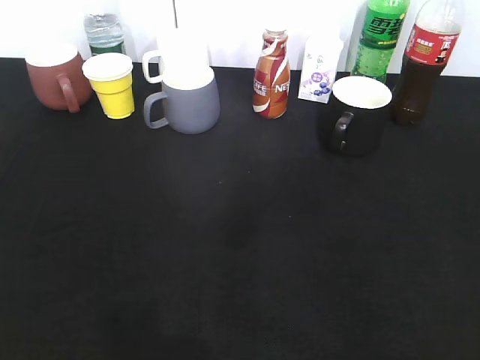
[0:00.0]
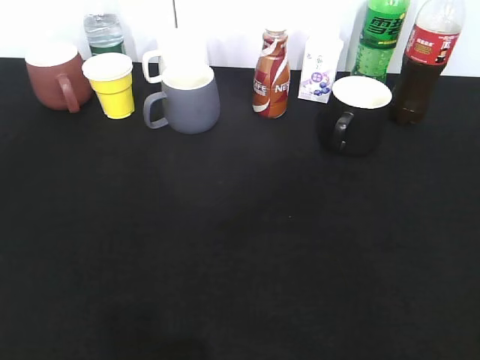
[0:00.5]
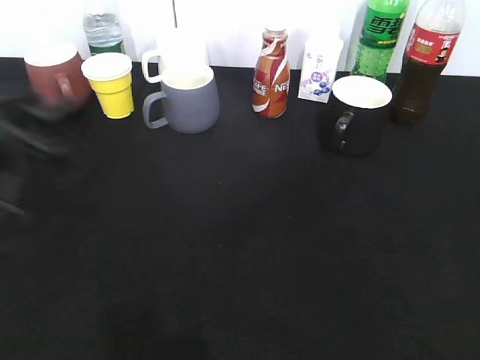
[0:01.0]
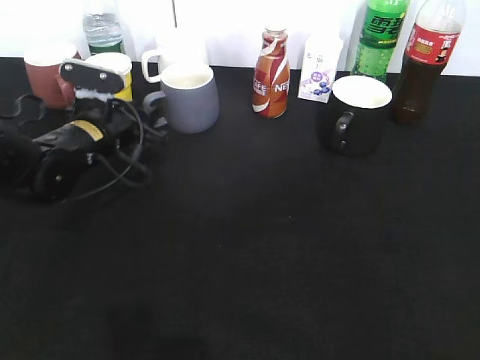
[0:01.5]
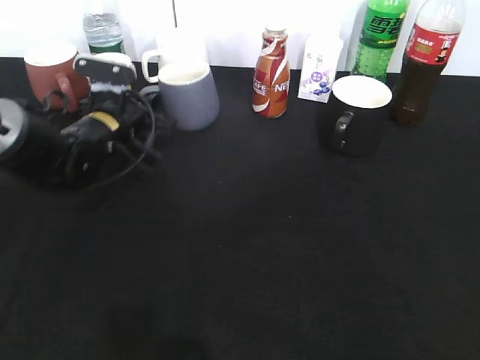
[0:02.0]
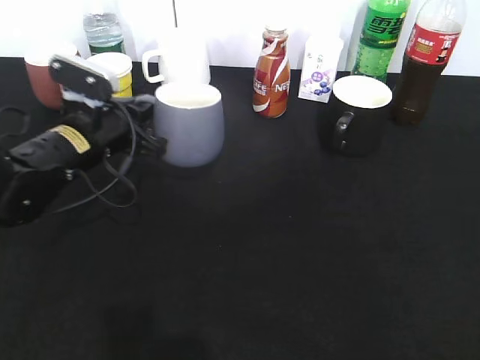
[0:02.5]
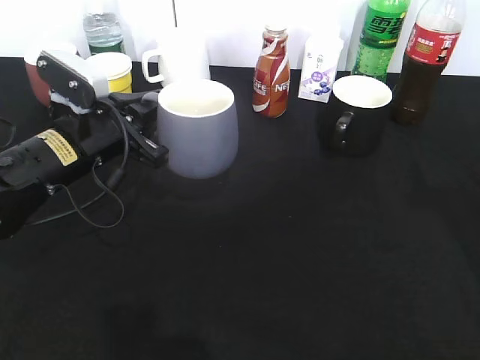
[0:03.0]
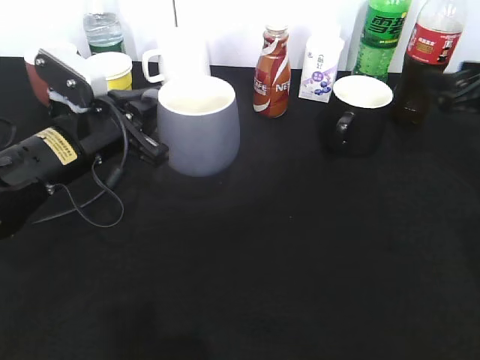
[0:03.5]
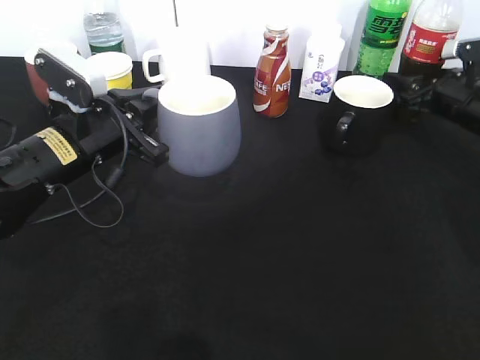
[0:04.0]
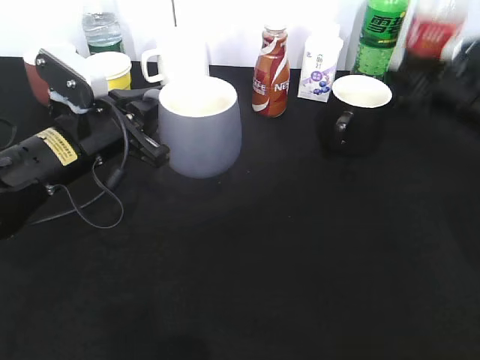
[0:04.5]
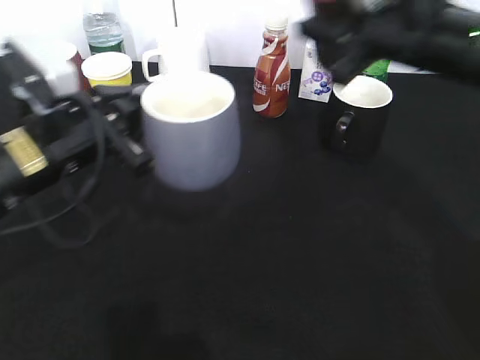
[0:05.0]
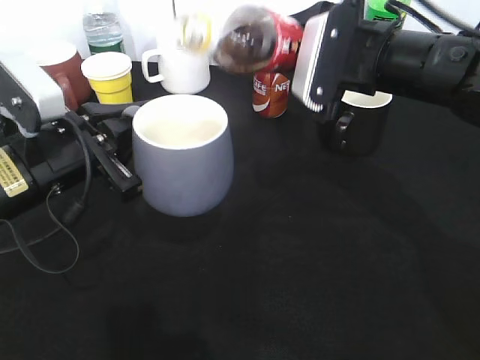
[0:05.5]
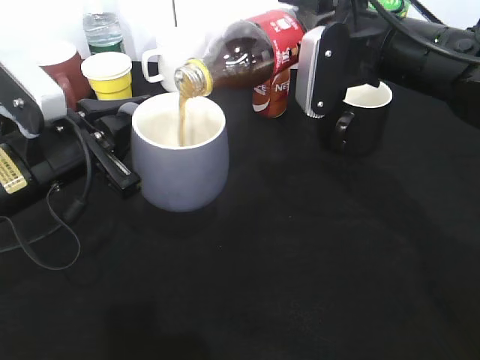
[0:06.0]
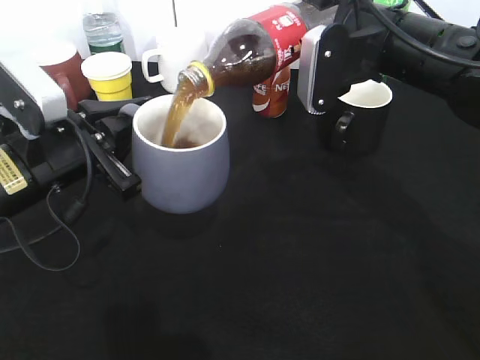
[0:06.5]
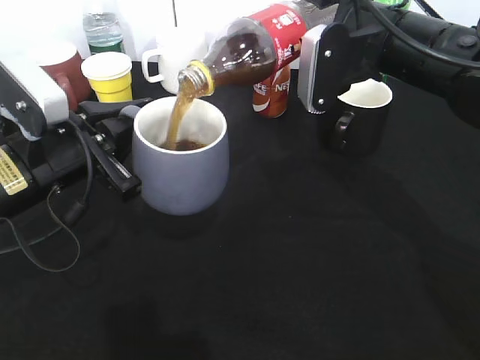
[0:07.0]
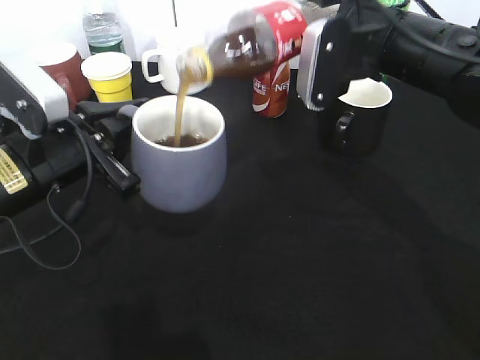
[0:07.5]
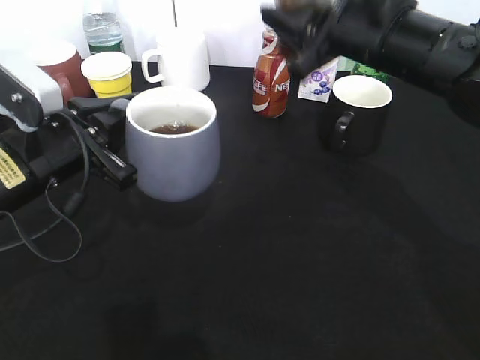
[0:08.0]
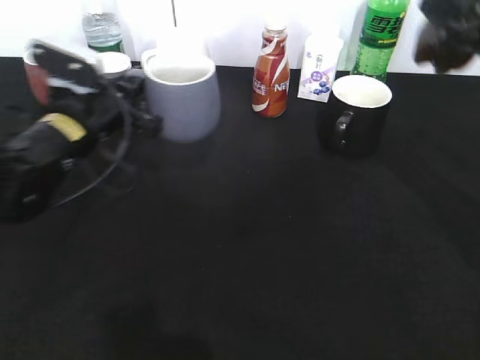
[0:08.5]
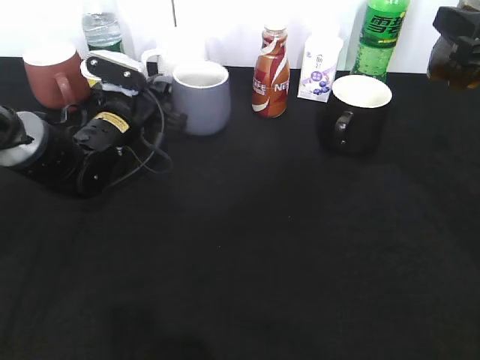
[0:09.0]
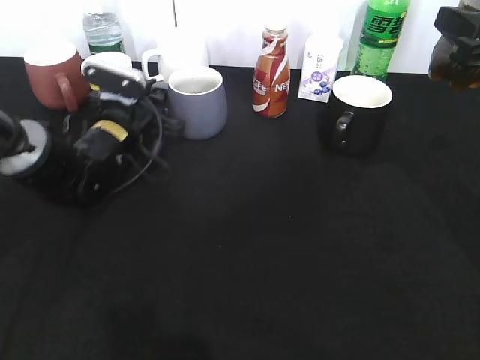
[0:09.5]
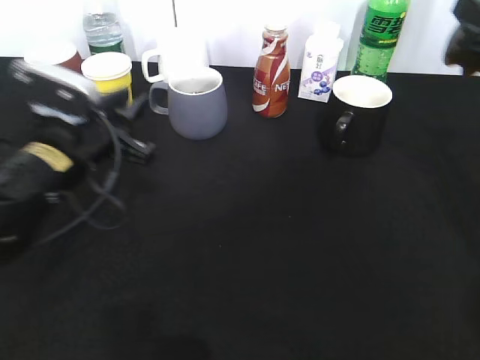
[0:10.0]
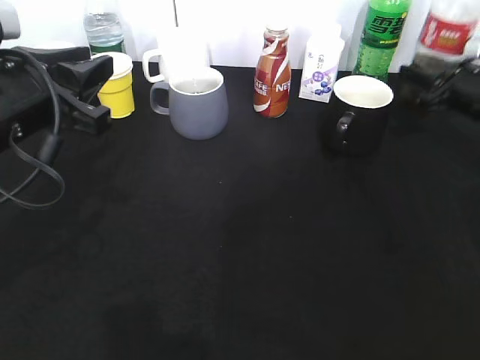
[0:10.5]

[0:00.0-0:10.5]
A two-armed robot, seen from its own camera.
Step, 0:00.0 to 0:02.0: Grasp the grey cup with left gripper.
Step, 0:03.0 to 0:04.0: Grasp the bottle with cola with right gripper.
Step, 0:04.5 to 0:07.0: Pour the cola from bottle to cup with right gripper.
Step, 0:07.5 to 0:09.5: Place the grey cup on the table with left gripper.
0:00.0 to 0:02.0: The left gripper moves forward and downward, about 40 cm, and closes.
0:02.0 to 0:04.0: The left gripper shifts roughly 10 cm backward and upward. Meanwhile the right gripper moves forward, some 40 cm.
0:04.0 to 0:06.5: The right gripper shifts about 25 cm to the left, upward and backward, and closes up; the left gripper heads backward, covering some 5 cm.
0:06.5 to 0:08.5: The left gripper is displaced forward by approximately 10 cm; the right gripper goes about 15 cm to the right.
0:08.5 to 0:10.5: The right gripper goes roughly 20 cm downward, forward and to the right. The left gripper goes roughly 15 cm backward and upward, and opens its fingers.

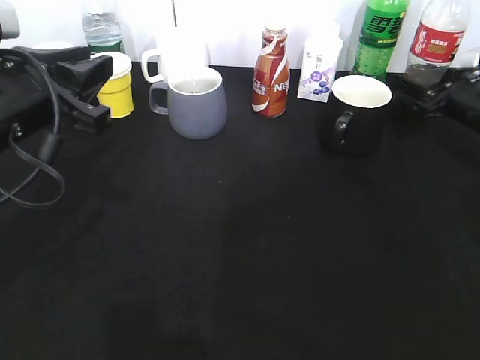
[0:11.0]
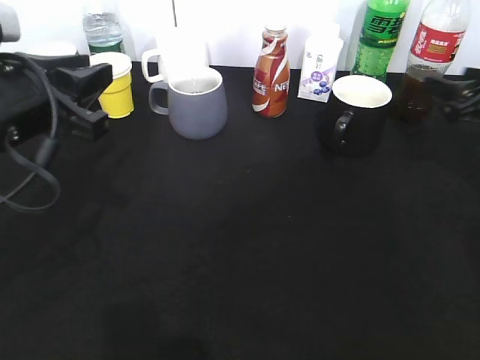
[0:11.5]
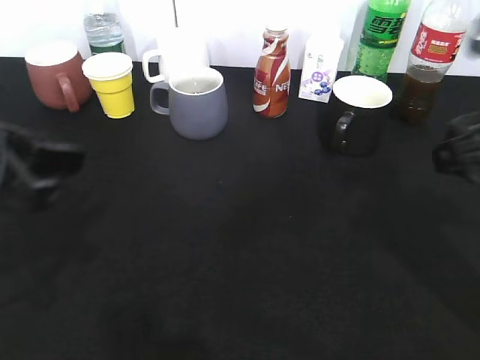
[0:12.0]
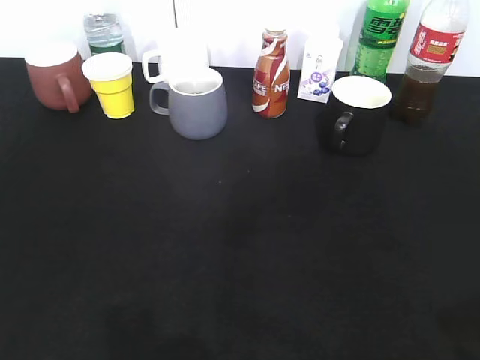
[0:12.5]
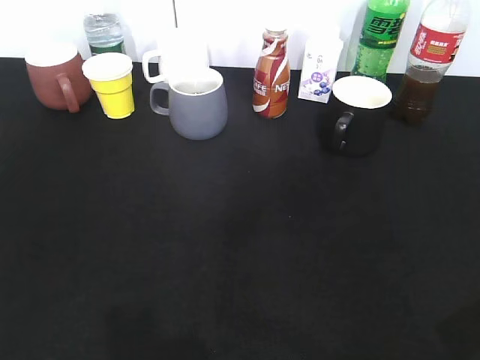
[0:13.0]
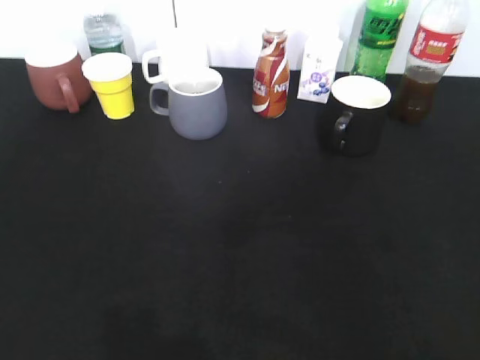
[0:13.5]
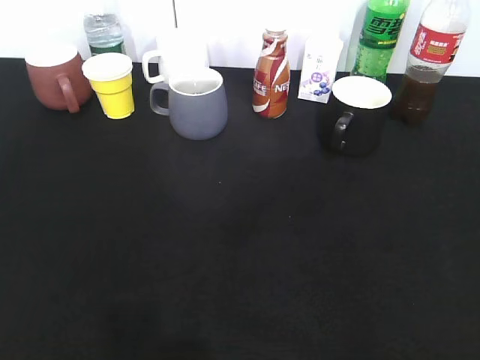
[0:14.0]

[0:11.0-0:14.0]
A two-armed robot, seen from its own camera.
0:11.0 to 0:12.5: The left gripper moves backward and to the left, some 25 cm, and opens up. Meanwhile the right gripper goes approximately 40 cm backward and upward.

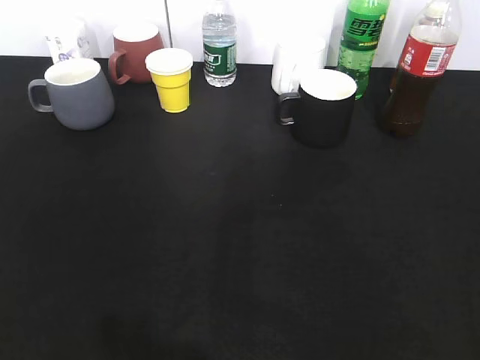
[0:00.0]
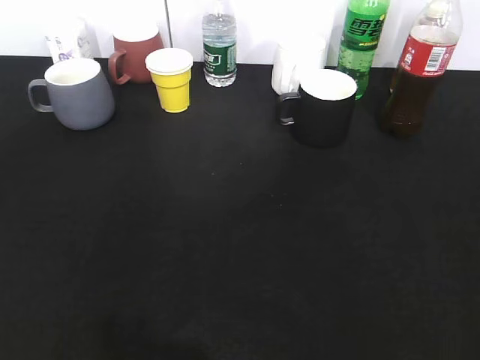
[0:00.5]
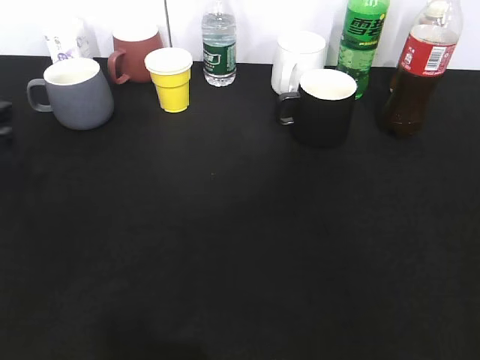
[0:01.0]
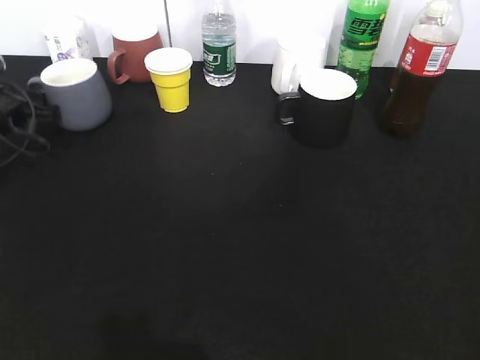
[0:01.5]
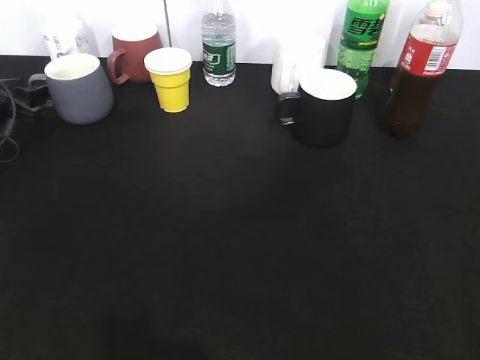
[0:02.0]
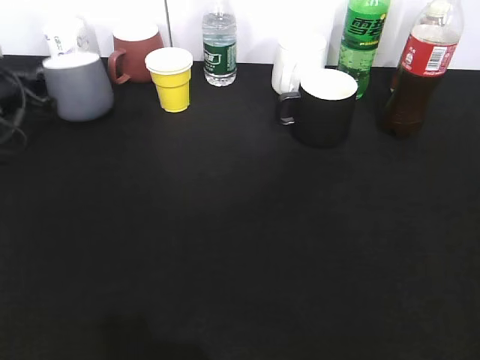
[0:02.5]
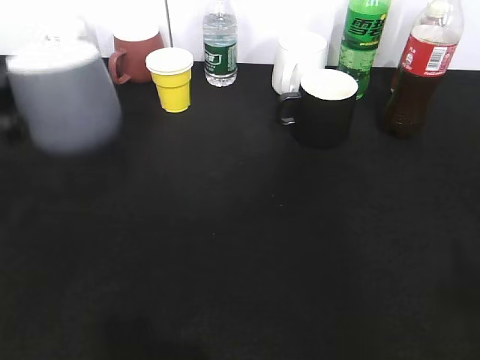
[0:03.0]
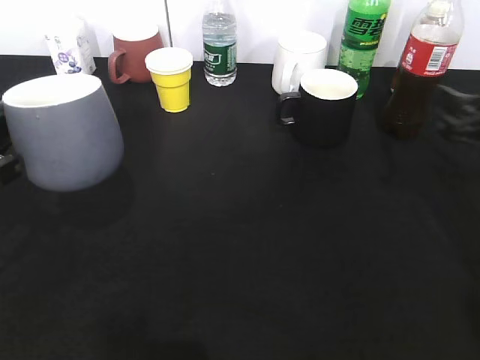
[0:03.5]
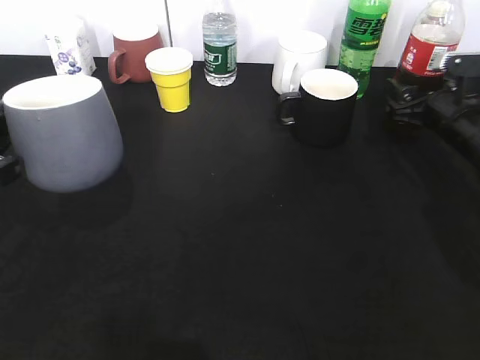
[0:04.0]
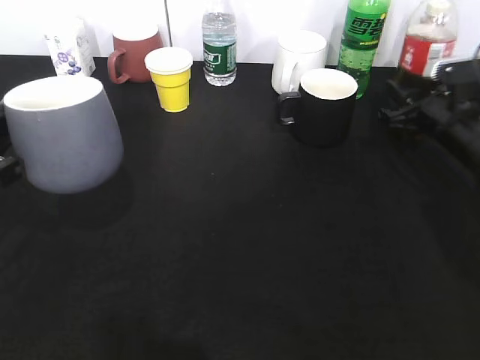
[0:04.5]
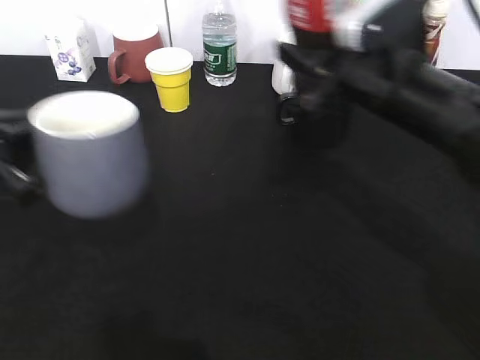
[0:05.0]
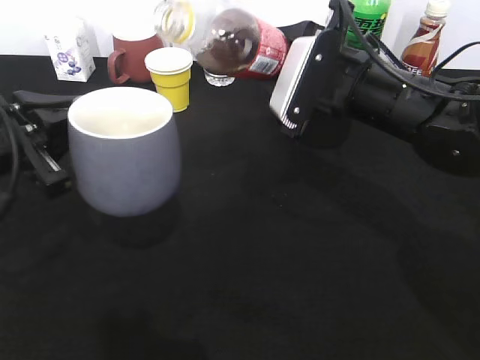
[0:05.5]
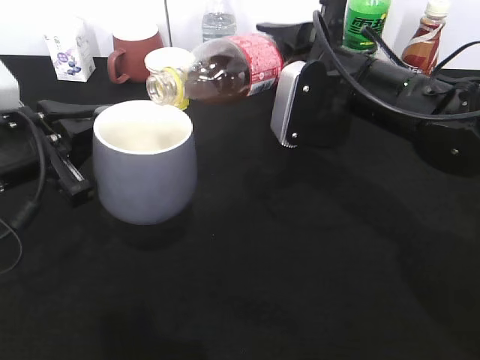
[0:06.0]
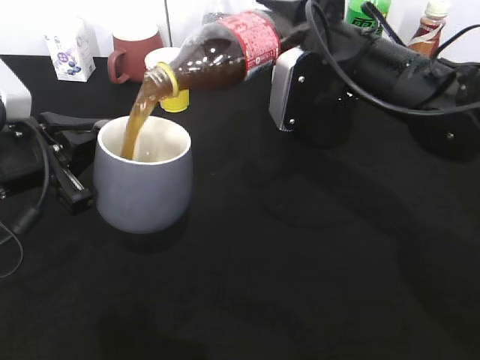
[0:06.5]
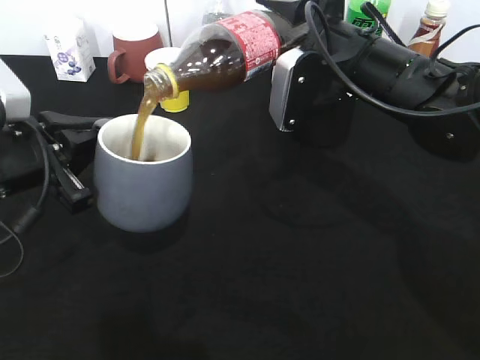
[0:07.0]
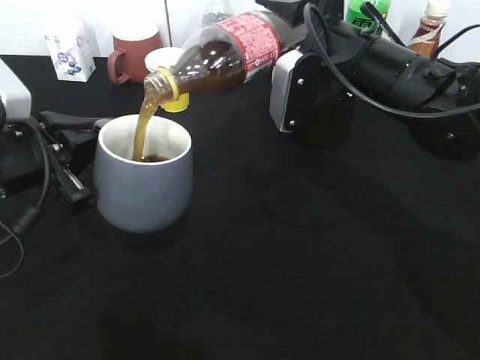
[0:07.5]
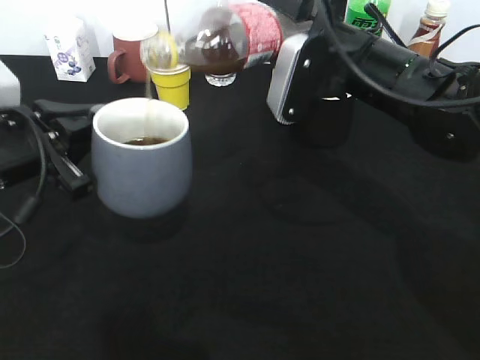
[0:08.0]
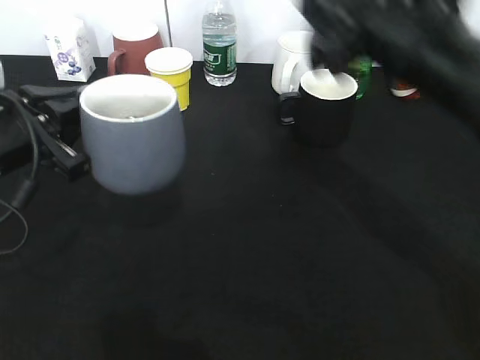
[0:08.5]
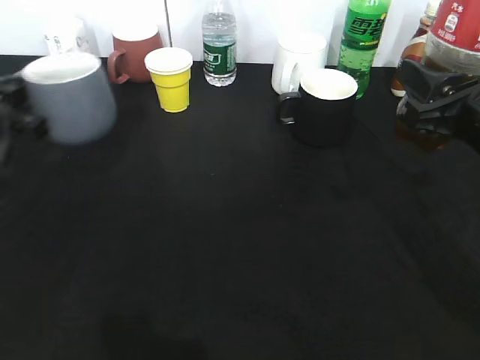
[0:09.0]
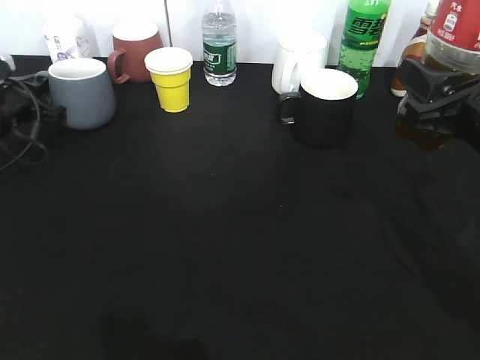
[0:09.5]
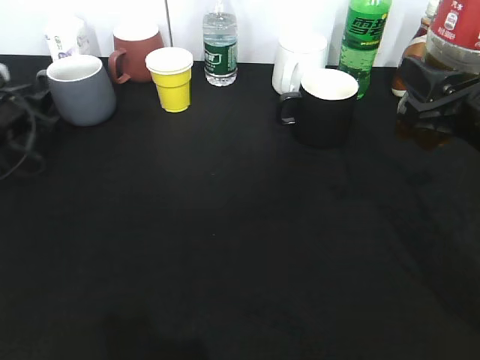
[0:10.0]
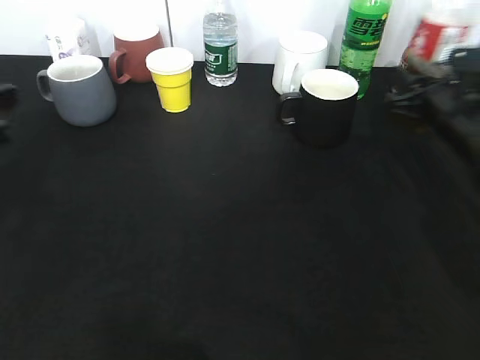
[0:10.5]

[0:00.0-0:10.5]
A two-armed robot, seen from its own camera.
Step, 0:02.0 to 0:03.0: Lift the grey cup with left gripper.
Step, 0:03.5 to 0:04.0: Grasp the bottle with cola with right gripper.
Step, 0:04.5 to 0:07.5: Pour the cola from bottle to cup with right gripper.
Step, 0:08.0 to 0:10.0: Place the grey cup on the table with left gripper.
0:00.0 to 0:02.0: The left gripper shifts approximately 40 cm forward.
0:02.0 to 0:04.0: The left gripper goes about 25 cm backward, upward and to the right, and closes. The right gripper travels forward and downward by some 40 cm.
0:04.0 to 0:06.5: The right gripper travels to the left and upward by roughly 20 cm, and closes; the left gripper is displaced to the right by roughly 5 cm.
0:06.5 to 0:08.5: The right gripper shifts by approximately 5 cm.
0:08.5 to 0:10.5: The right gripper goes roughly 20 cm downward, to the right and forward; the left gripper goes roughly 5 cm to the left, travels forward and back again, some 20 cm each way, and opens its fingers.

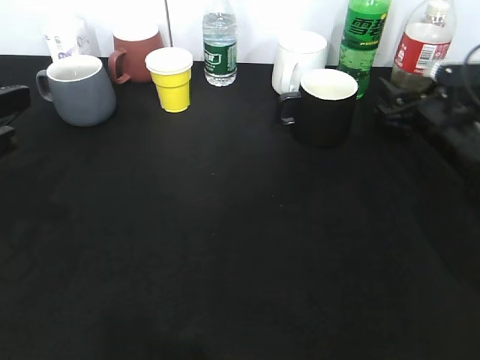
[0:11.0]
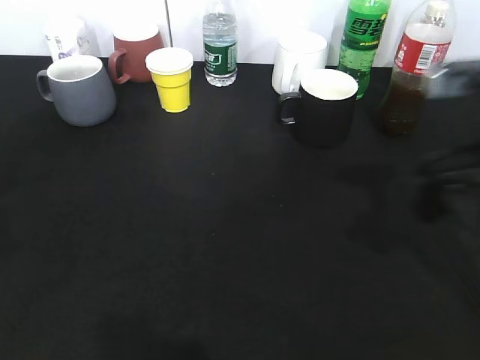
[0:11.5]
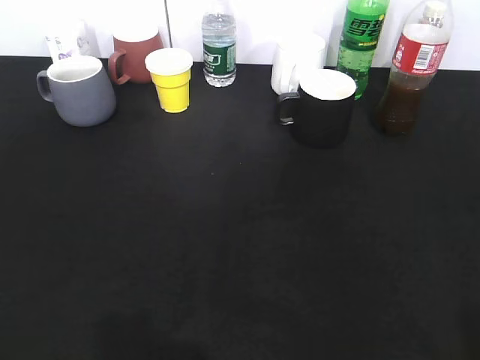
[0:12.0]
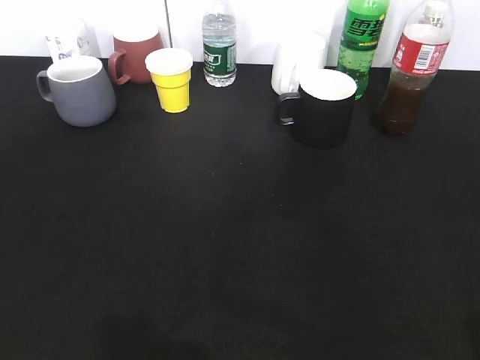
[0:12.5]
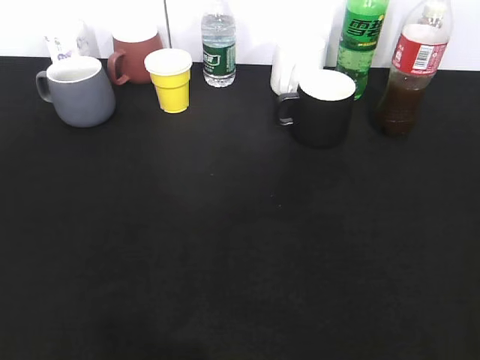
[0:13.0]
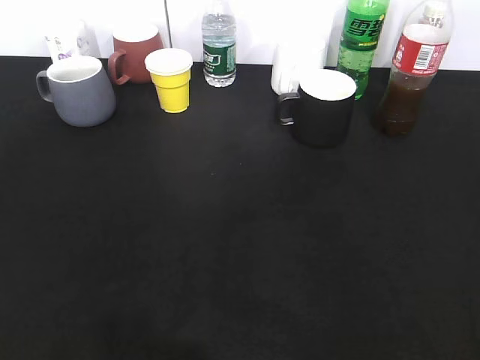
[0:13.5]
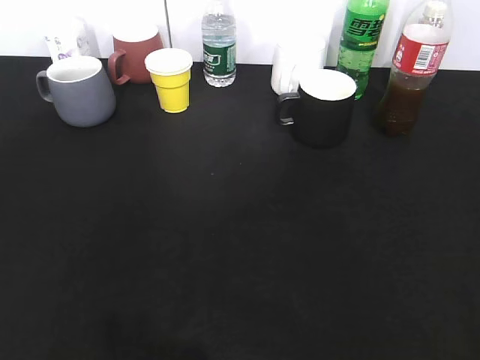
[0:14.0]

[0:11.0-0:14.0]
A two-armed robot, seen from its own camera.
0:11.0 to 0:12.5: The right gripper is displaced backward and upward by some 40 cm, while the left gripper travels backward by roughly 20 cm.
